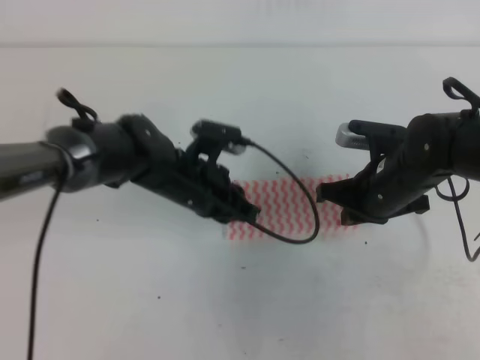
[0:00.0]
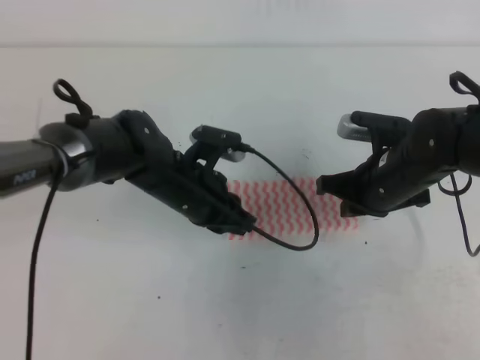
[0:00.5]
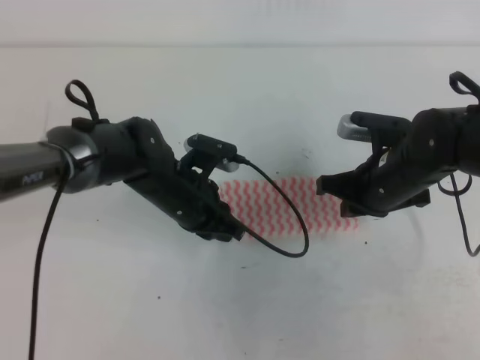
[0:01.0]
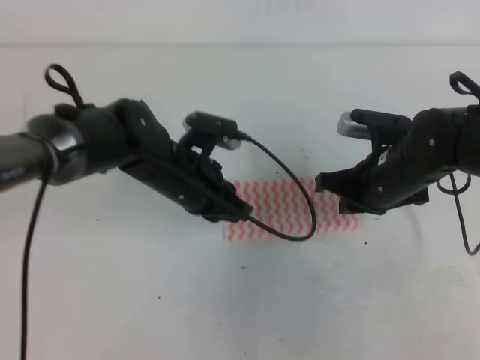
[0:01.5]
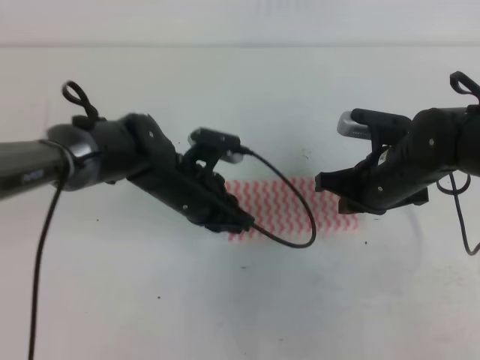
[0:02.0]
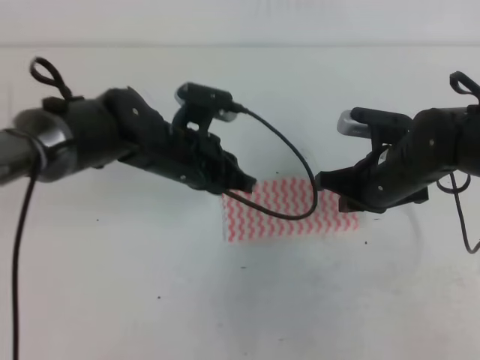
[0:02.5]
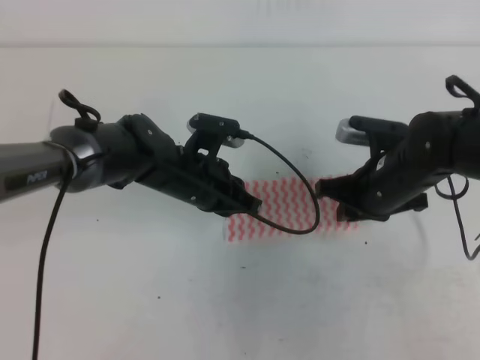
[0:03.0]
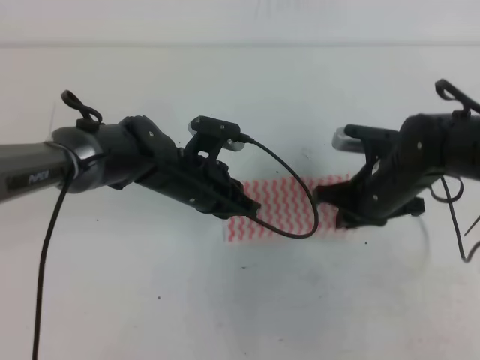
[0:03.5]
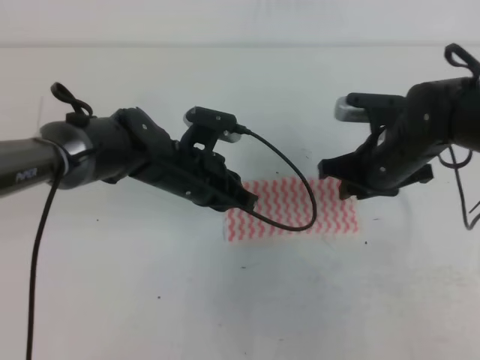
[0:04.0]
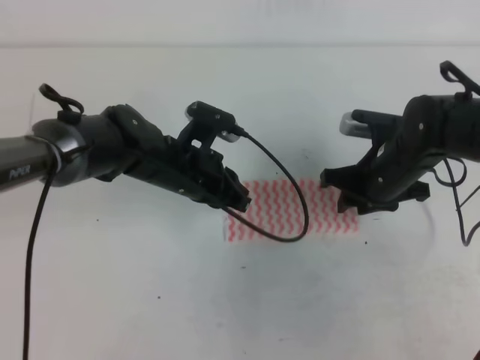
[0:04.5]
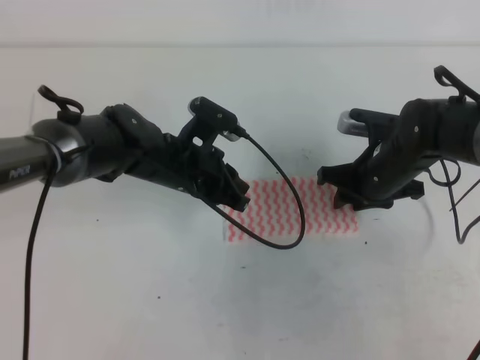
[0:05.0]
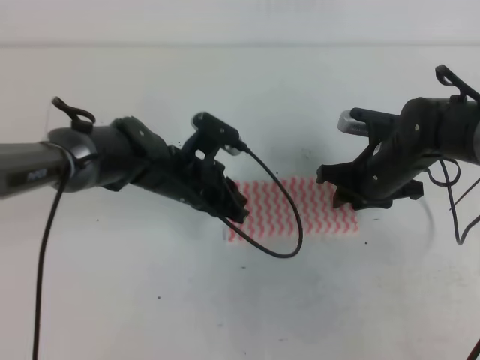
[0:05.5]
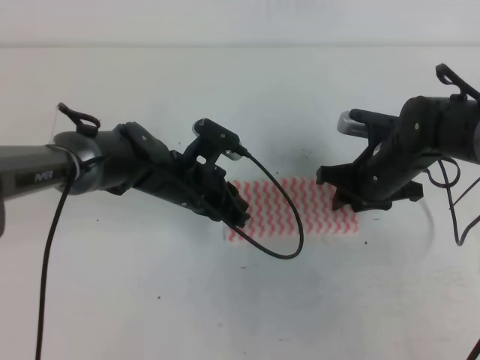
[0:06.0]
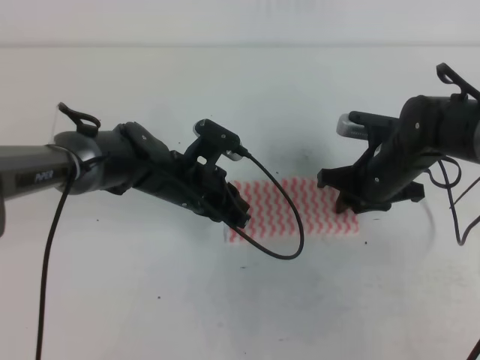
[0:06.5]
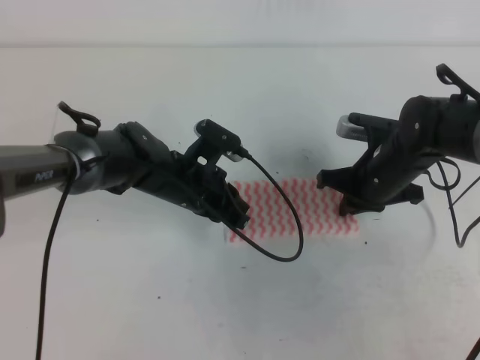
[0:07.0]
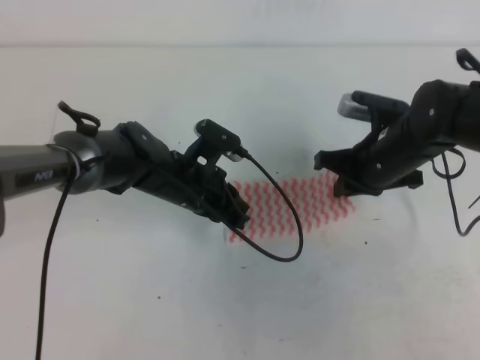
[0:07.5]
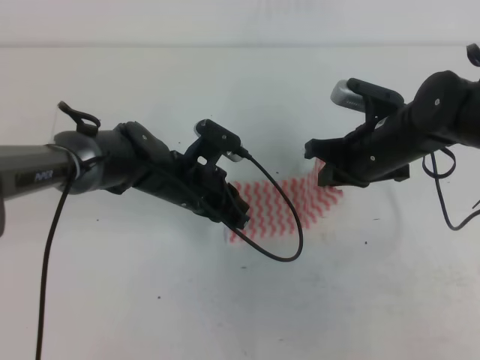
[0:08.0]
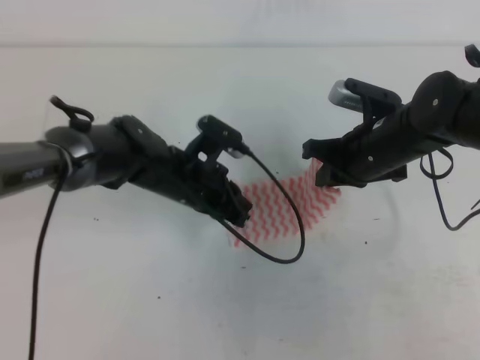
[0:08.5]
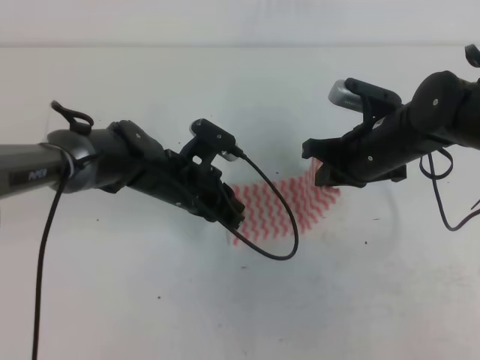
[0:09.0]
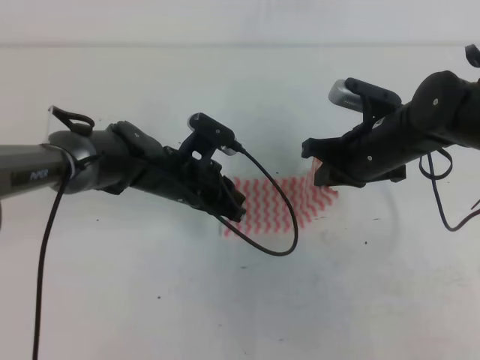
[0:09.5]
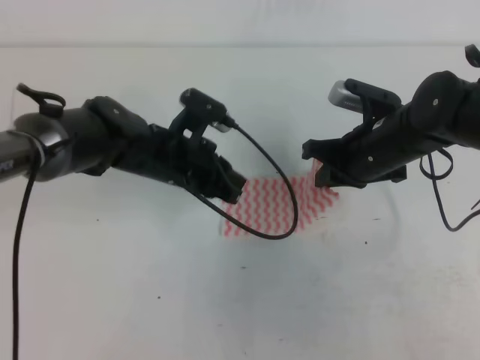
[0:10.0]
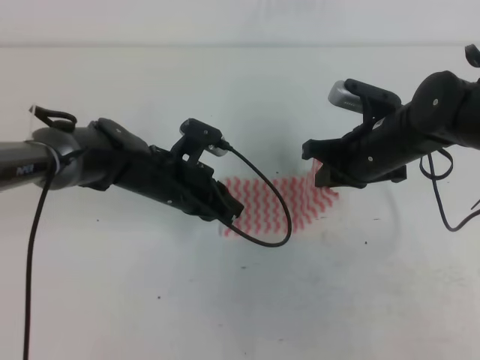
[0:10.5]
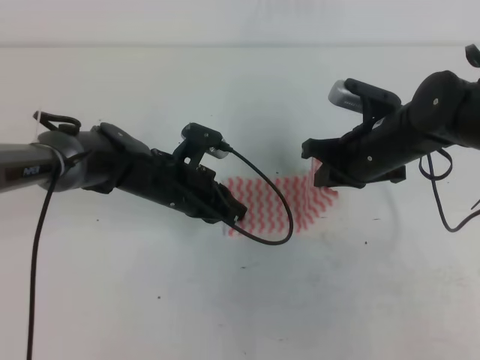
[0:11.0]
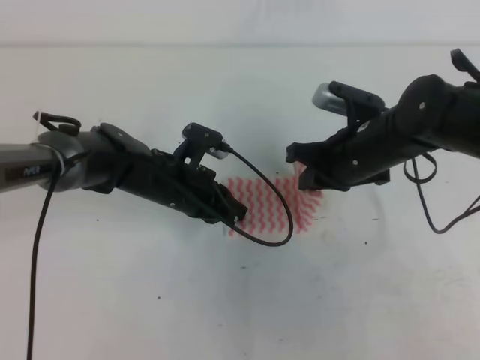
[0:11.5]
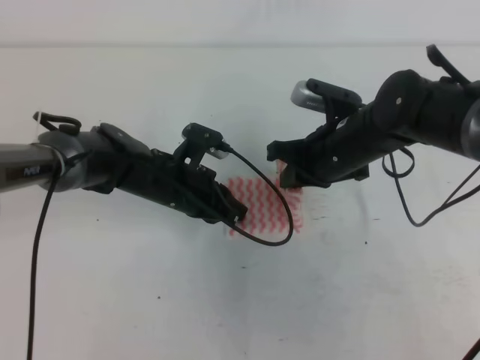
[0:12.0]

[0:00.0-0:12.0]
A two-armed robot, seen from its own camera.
0:00.0 to 0:02.0: The grippers make only small movements.
0:02.0 to 0:04.0: The right gripper opens up.
0:04.0 to 0:06.0: There are only small adjustments of the grippers.
0:06.0 to 0:08.0: The right gripper travels upward by approximately 5 cm, and closes up.
0:08.0 to 0:10.0: The grippers make only small movements.

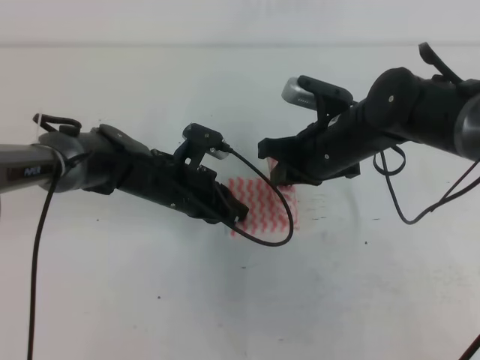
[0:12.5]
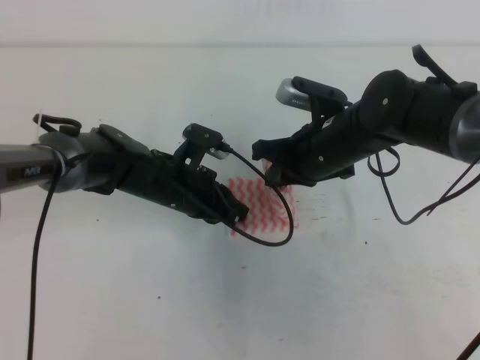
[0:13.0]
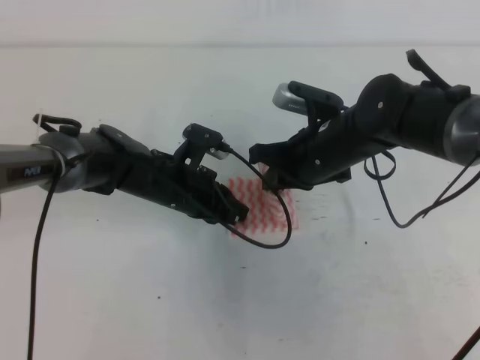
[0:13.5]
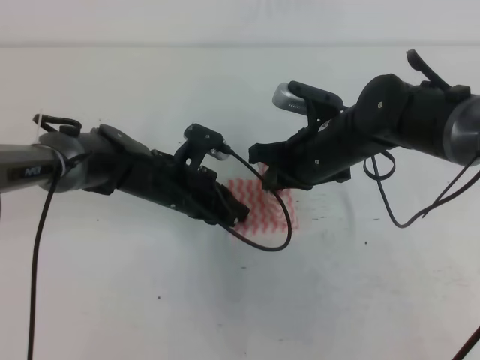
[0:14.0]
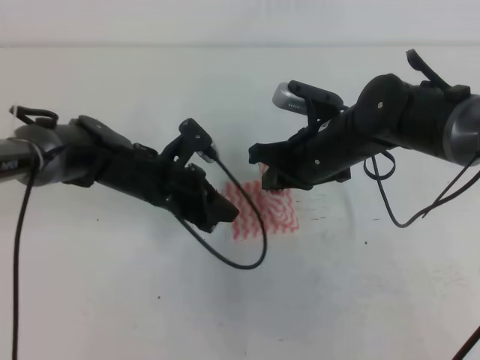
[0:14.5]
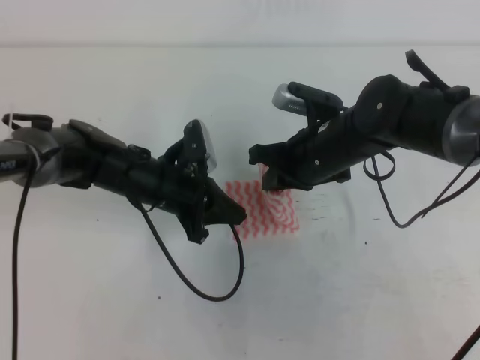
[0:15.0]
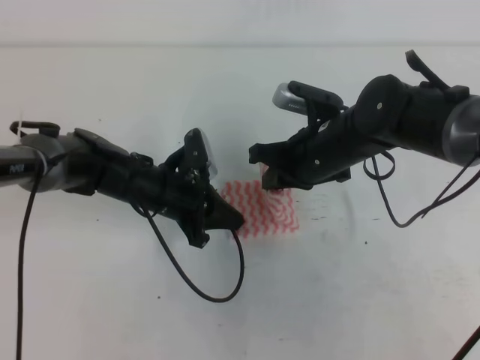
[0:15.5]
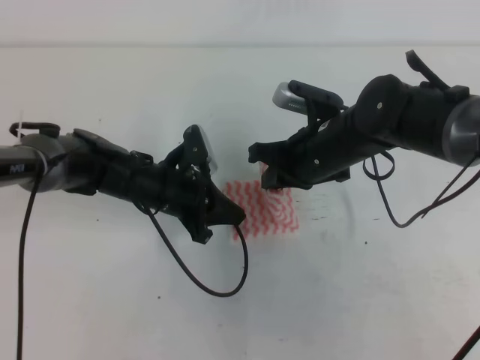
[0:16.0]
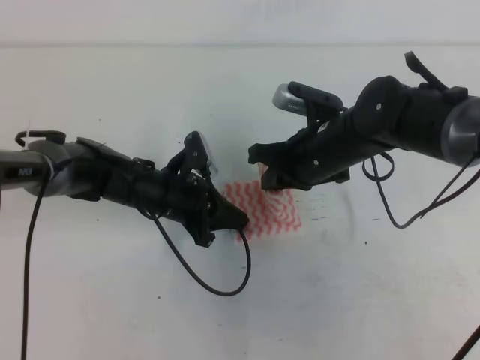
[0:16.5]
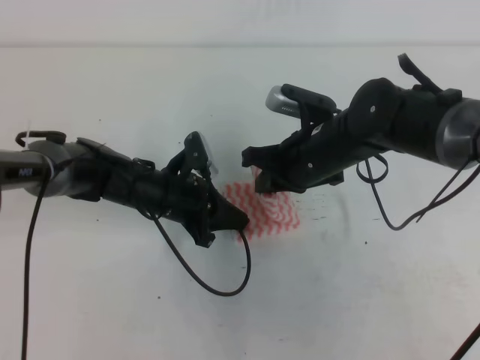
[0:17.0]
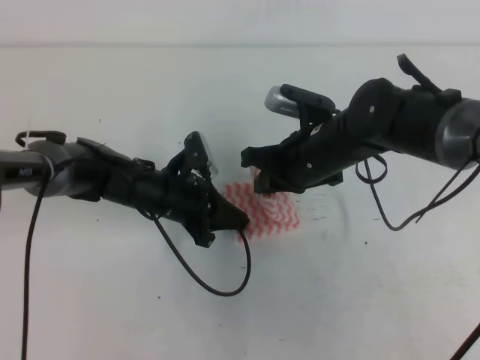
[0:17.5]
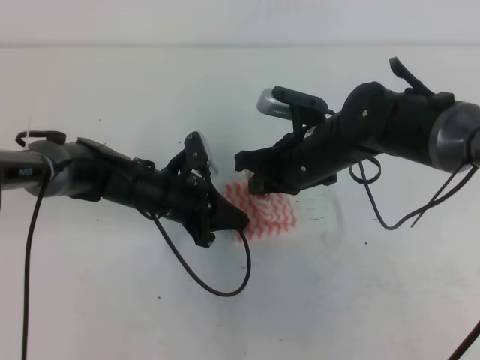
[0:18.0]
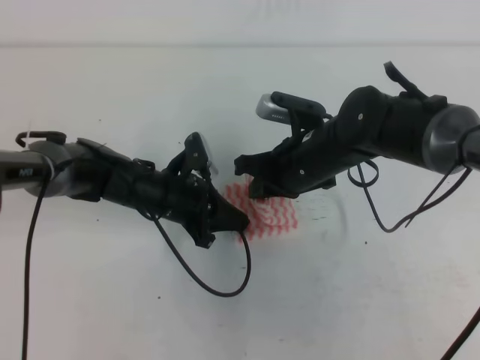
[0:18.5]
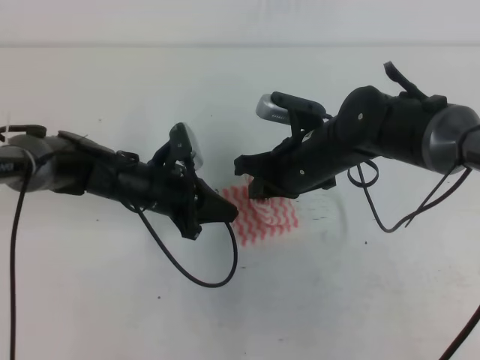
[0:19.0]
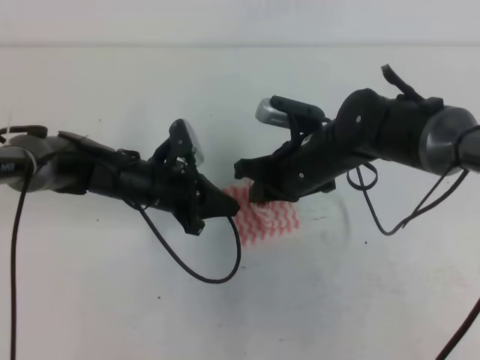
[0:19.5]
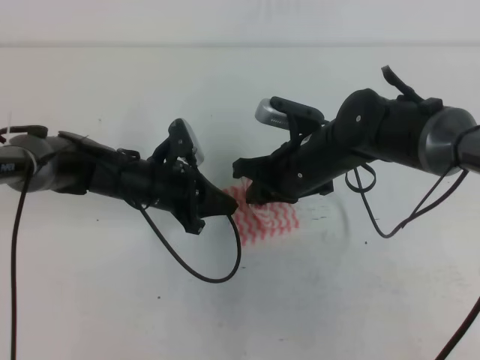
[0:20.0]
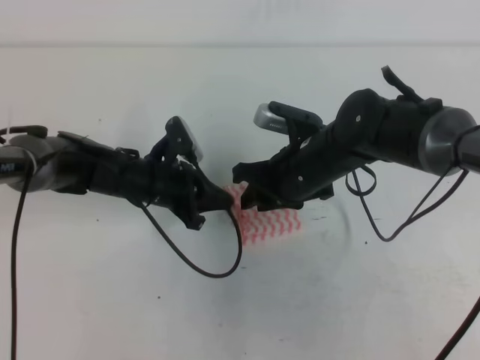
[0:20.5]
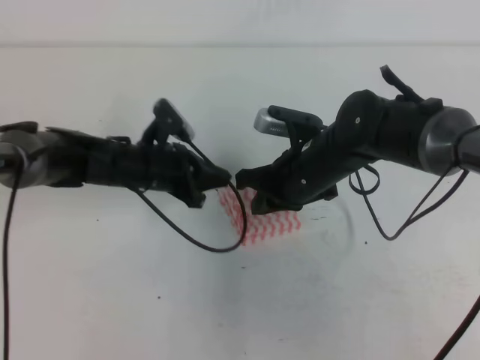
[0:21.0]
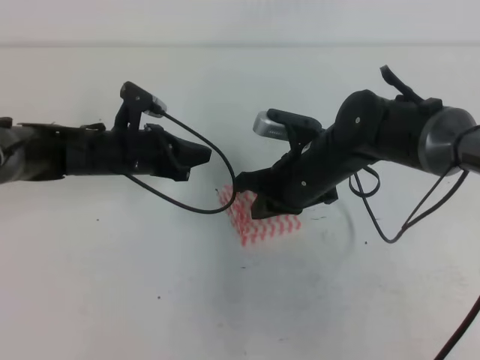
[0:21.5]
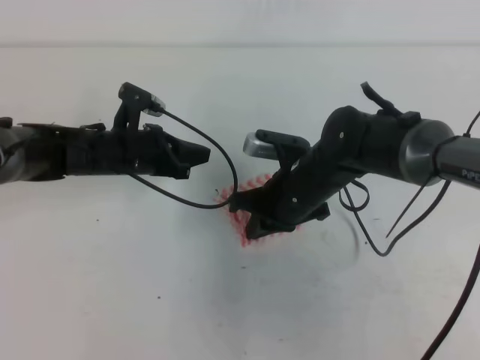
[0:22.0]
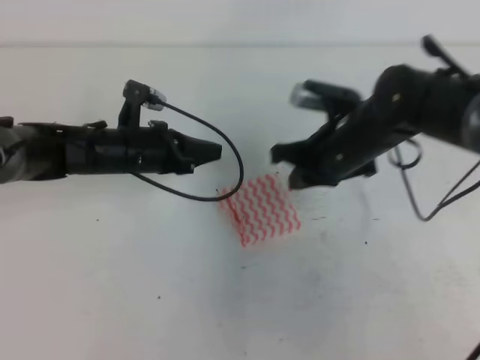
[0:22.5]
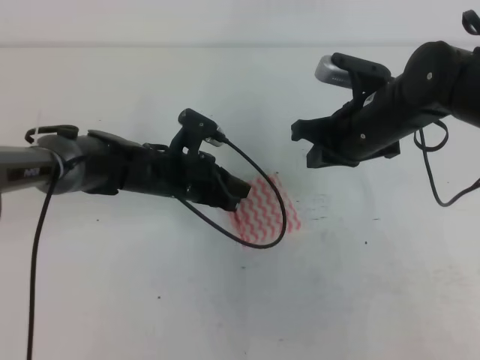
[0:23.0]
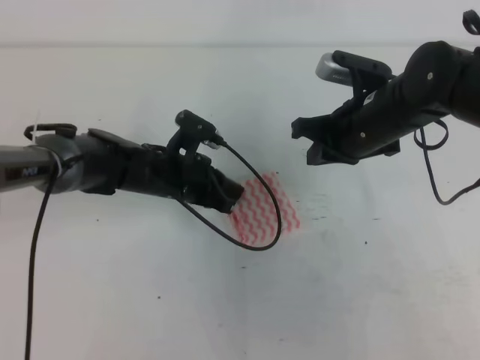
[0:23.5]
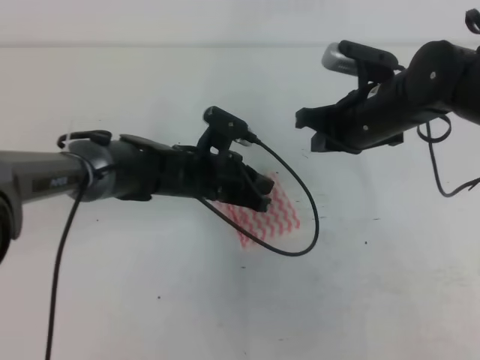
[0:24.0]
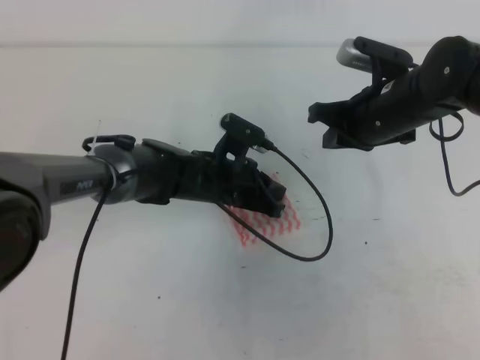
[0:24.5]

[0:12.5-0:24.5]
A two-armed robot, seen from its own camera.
0:12.5 to 0:14.5: The grippers make only small movements.
0:14.5 to 0:18.5: The grippers move only a little.
0:18.5 to 0:20.5: The right gripper opens.
0:20.5 to 0:22.5: The right gripper closes.
0:22.5 to 0:24.5: The left gripper is displaced to the right by approximately 10 cm. The right gripper moves to the right, about 5 cm.

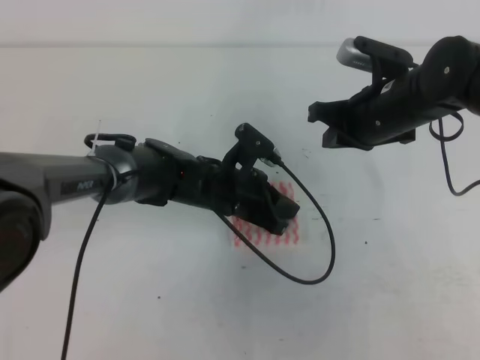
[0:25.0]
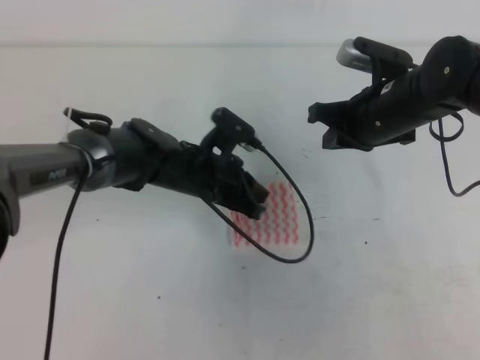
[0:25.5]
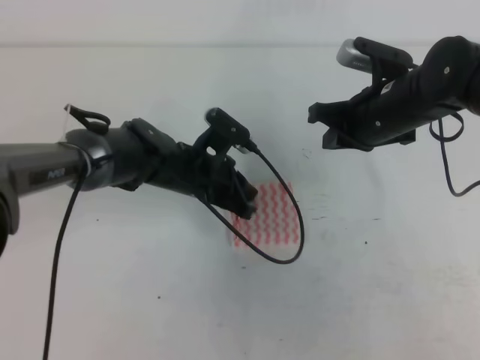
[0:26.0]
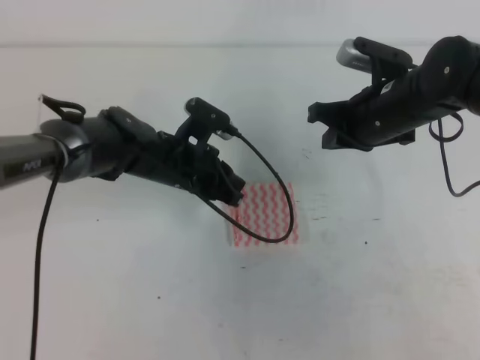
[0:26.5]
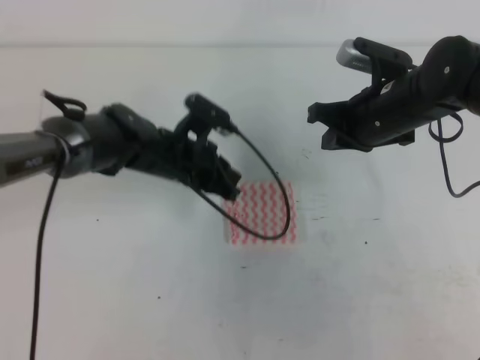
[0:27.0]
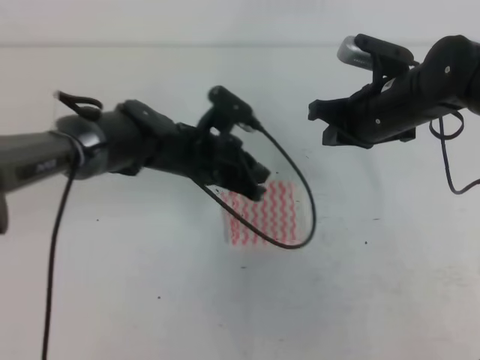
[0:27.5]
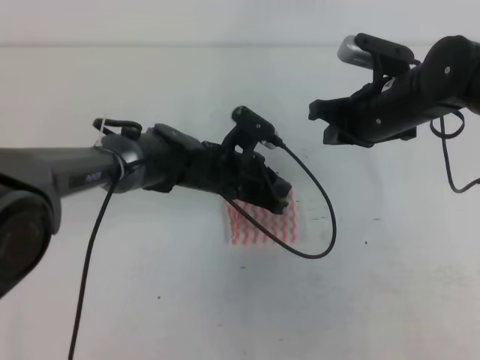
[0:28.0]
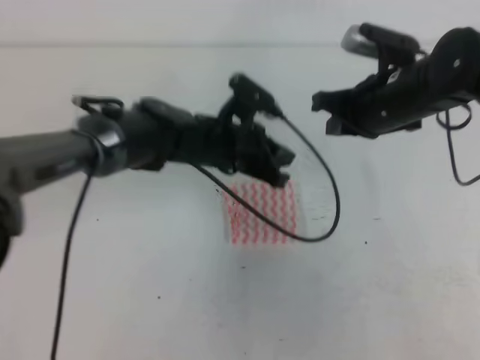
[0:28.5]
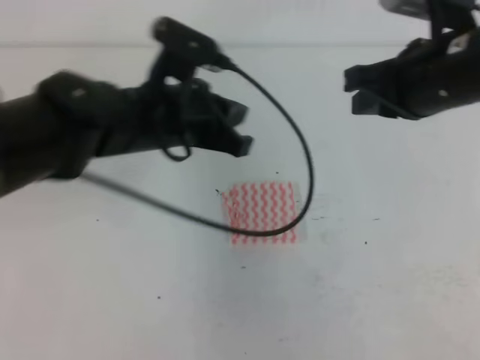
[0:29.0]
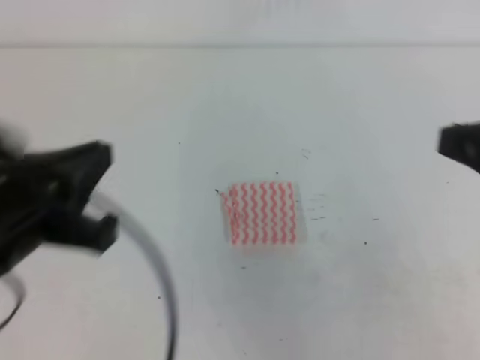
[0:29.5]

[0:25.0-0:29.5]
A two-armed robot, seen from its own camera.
0:25.0 to 0:27.0: The left gripper moves to the left, some 5 cm.
0:27.0 to 0:29.5: The right gripper travels backward and upward by roughly 25 cm; the left gripper goes about 30 cm backward, upward and to the left.
